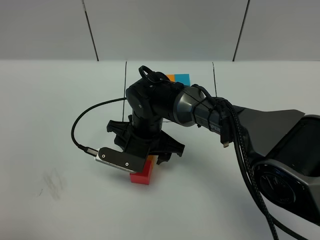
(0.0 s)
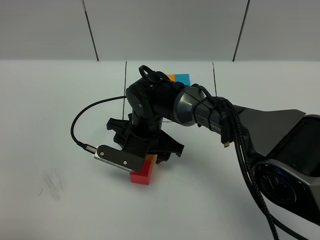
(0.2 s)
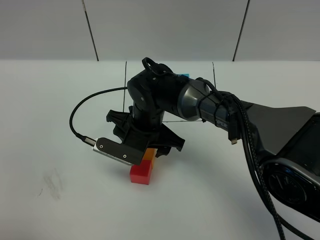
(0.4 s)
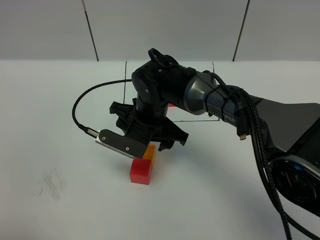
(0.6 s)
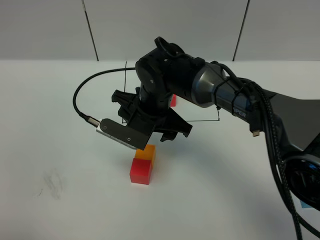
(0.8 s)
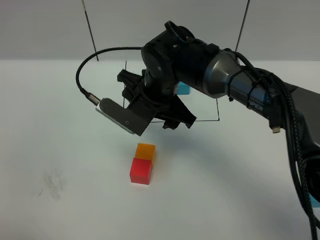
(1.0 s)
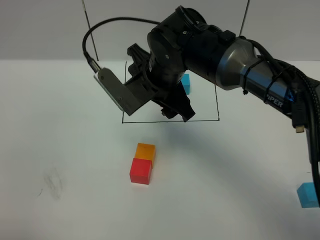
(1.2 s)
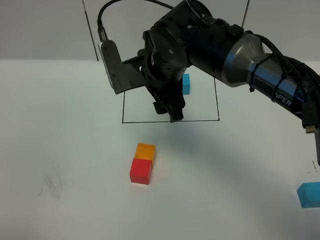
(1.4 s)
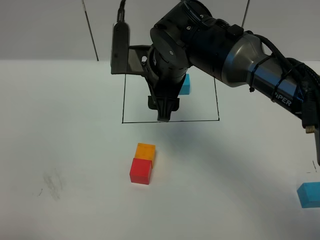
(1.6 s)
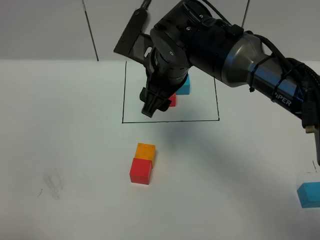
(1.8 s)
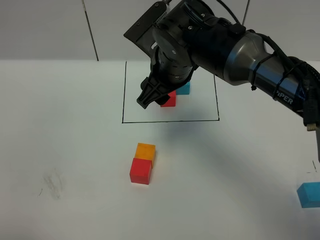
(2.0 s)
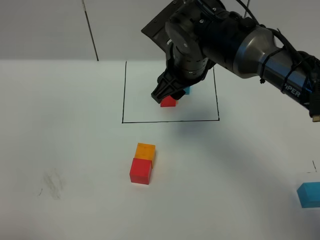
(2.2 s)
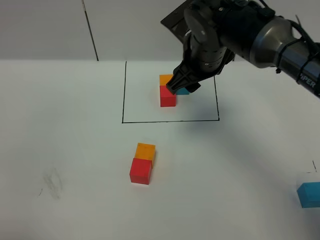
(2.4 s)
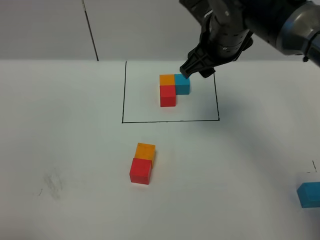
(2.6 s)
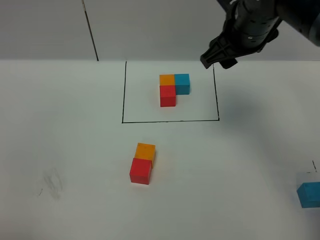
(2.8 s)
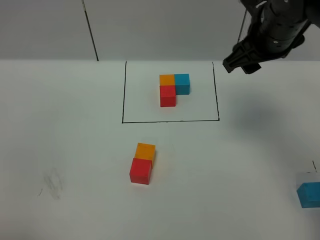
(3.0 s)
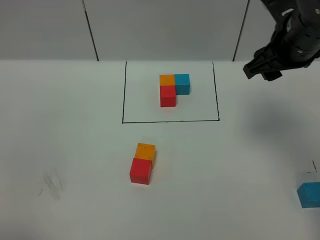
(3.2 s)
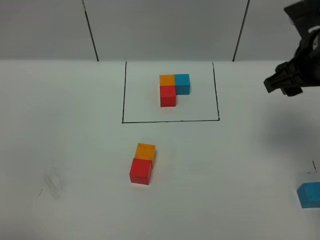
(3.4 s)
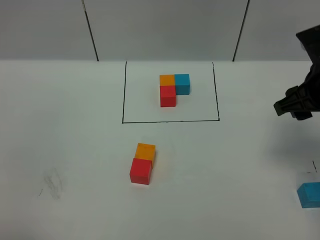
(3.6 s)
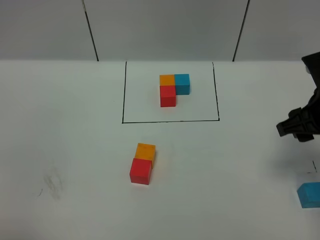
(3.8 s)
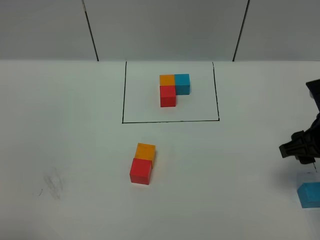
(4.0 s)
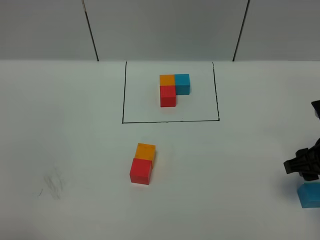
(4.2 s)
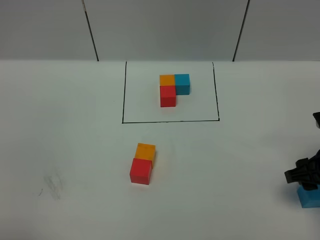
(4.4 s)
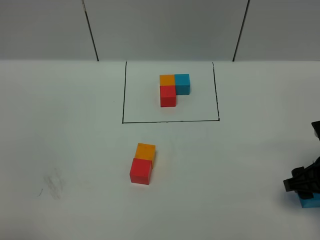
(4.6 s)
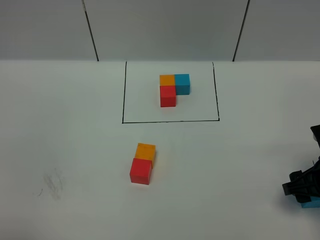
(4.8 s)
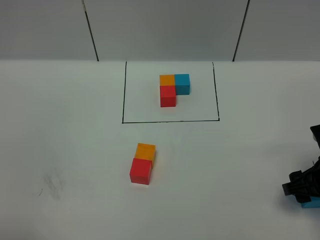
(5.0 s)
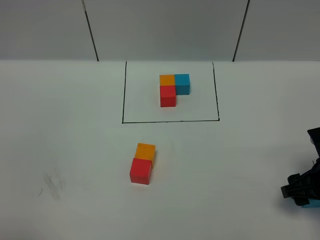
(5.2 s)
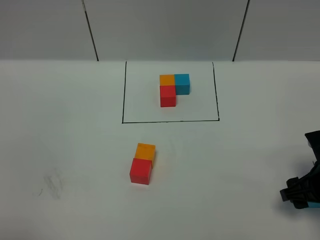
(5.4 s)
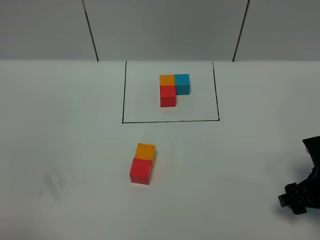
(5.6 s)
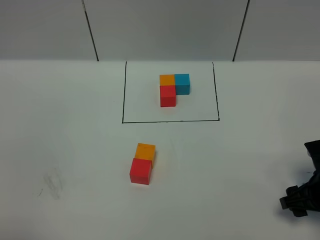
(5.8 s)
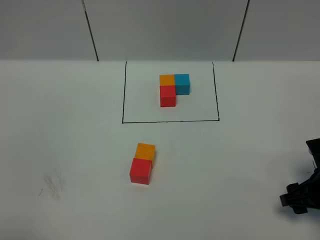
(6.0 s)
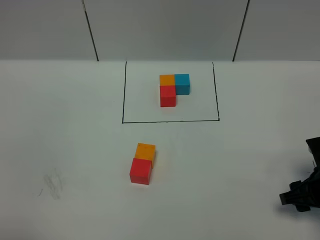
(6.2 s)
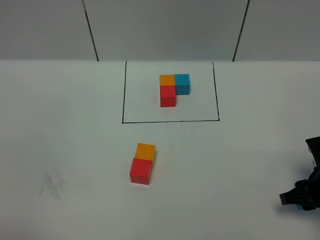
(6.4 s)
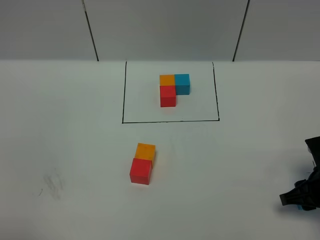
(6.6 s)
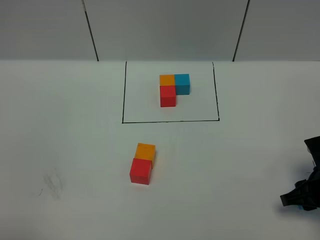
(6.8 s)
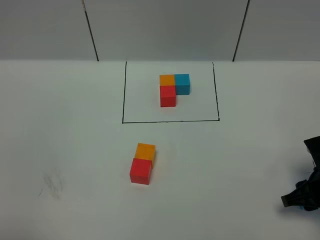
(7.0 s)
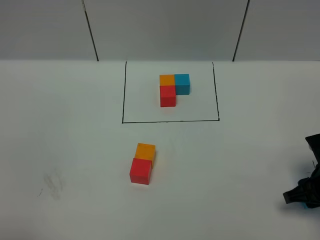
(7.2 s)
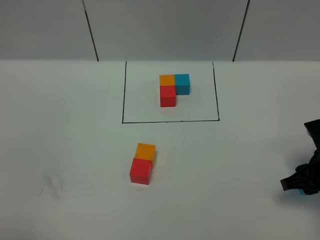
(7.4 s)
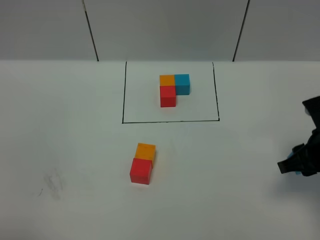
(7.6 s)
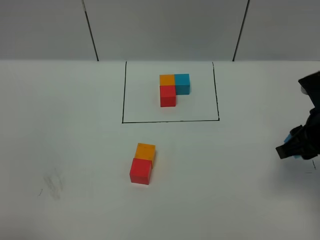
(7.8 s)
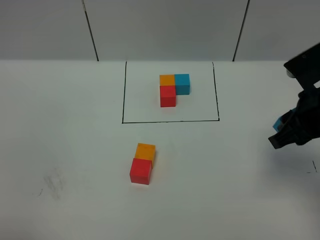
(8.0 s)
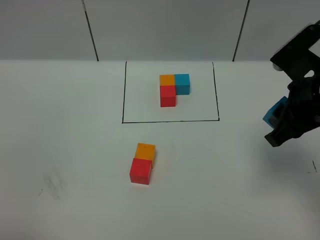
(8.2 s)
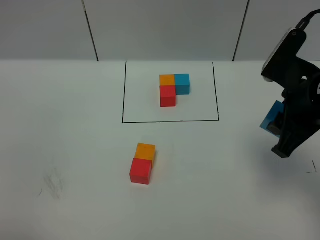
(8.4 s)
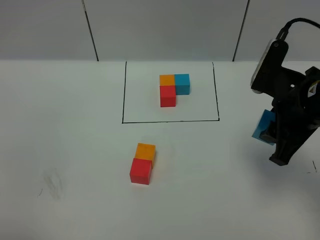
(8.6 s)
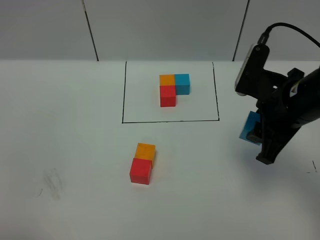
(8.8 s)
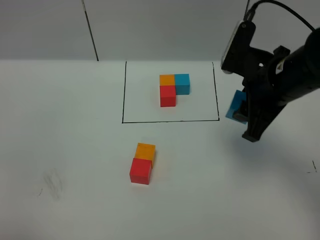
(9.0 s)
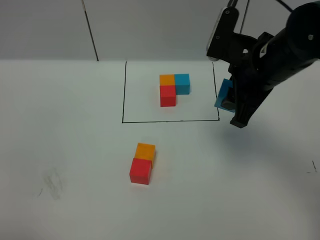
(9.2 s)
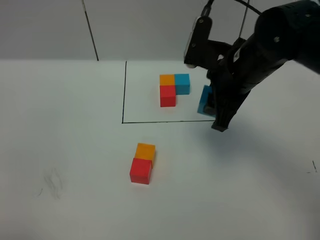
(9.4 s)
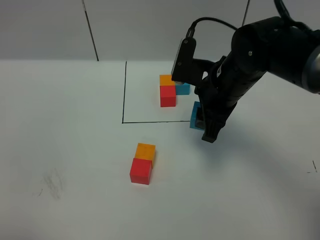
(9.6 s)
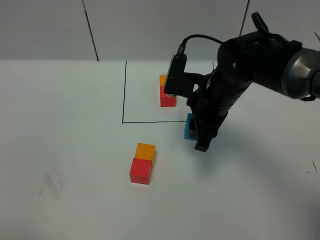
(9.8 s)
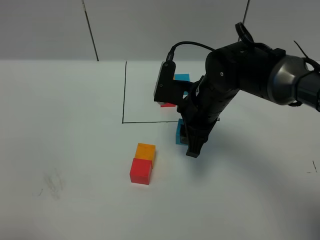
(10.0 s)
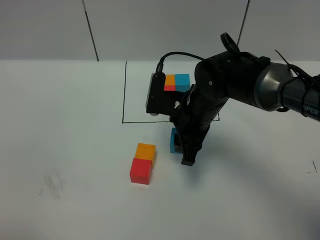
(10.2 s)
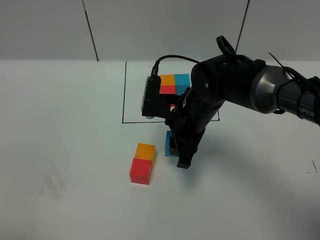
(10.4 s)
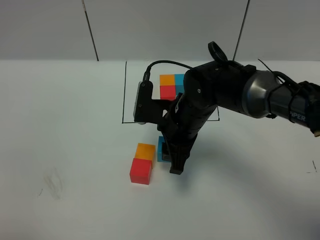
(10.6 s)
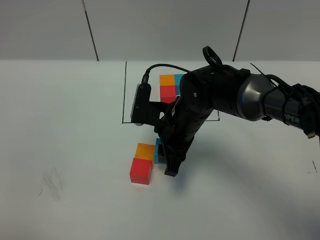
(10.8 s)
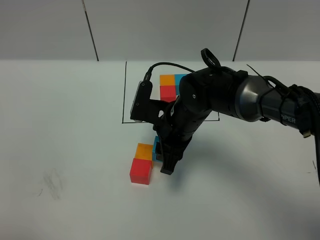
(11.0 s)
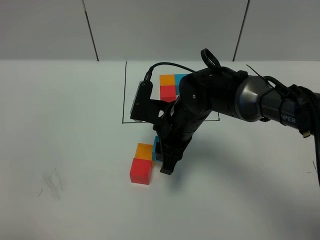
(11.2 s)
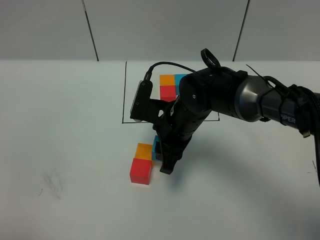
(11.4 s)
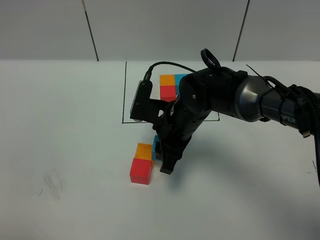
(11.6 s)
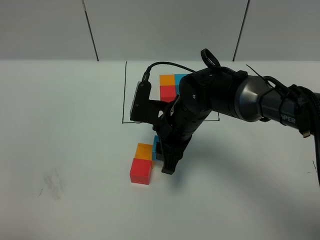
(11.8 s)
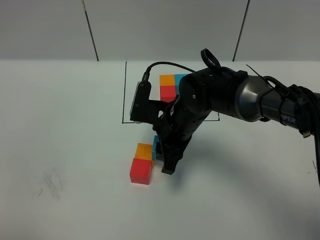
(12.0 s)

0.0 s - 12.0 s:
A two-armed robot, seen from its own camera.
Task of the whole recording: According to the building block template in front, assemble the scattered blocks together.
0.0 s - 1.6 s: The right gripper heads upward, covering about 15 cm.
1.6 s - 3.0 s: The right gripper travels to the right by some 15 cm.
3.0 s - 4.4 s: The right gripper is displaced downward, backward and to the right by about 25 cm.
4.4 s - 6.0 s: The right gripper heads downward, covering approximately 5 cm.
6.0 s - 7.6 s: The right gripper travels upward by about 10 cm.
7.6 s - 9.0 s: The right gripper heads to the left, upward and forward, covering some 15 cm.
9.0 s - 10.4 s: The right gripper goes some 15 cm to the left and downward.
10.4 s - 12.0 s: The grippers stay close to where they were, moving slightly.

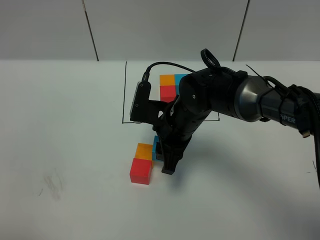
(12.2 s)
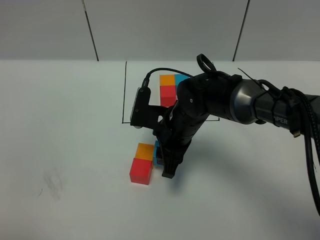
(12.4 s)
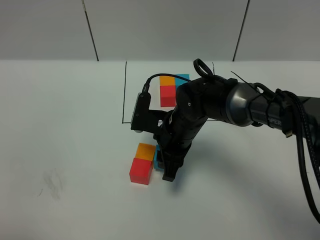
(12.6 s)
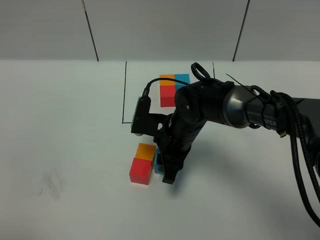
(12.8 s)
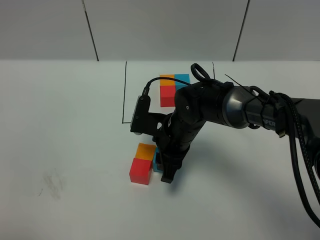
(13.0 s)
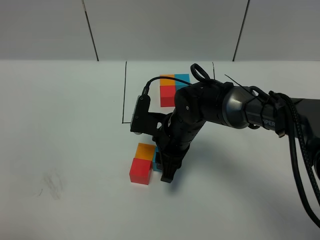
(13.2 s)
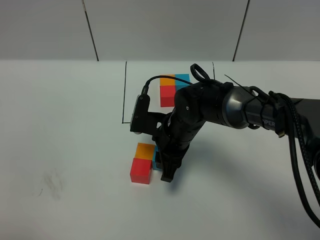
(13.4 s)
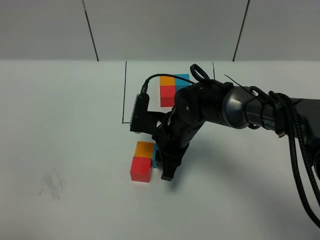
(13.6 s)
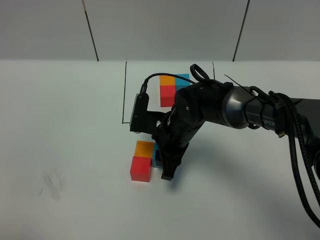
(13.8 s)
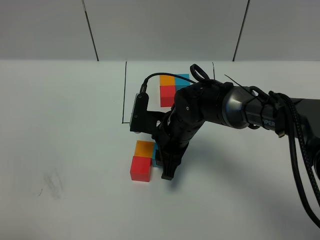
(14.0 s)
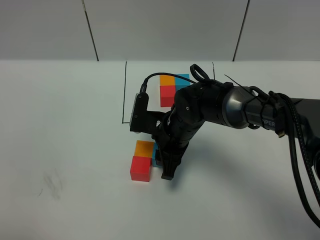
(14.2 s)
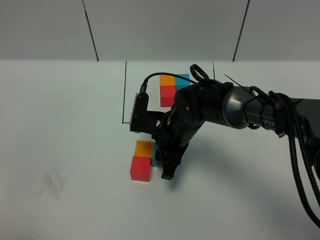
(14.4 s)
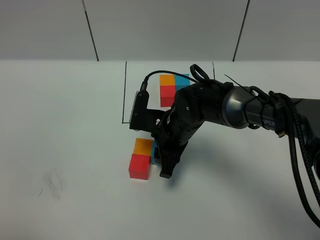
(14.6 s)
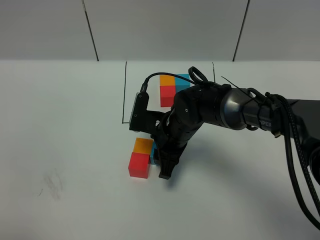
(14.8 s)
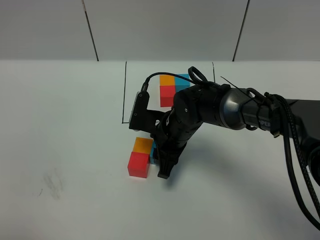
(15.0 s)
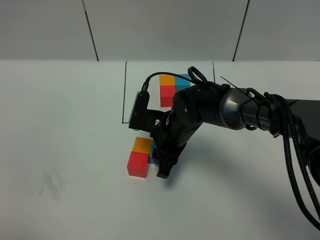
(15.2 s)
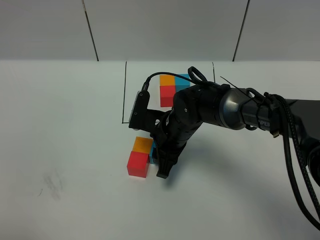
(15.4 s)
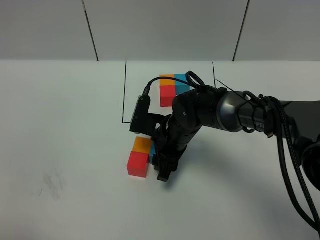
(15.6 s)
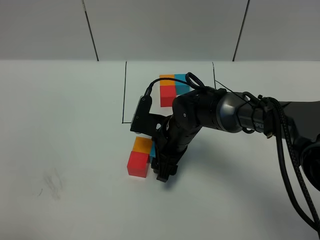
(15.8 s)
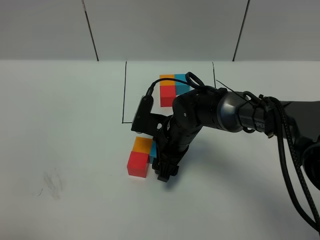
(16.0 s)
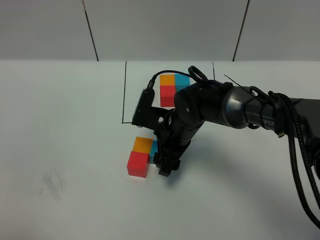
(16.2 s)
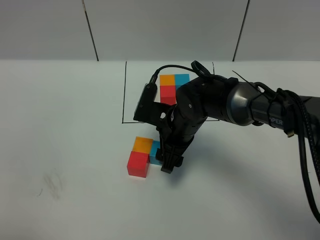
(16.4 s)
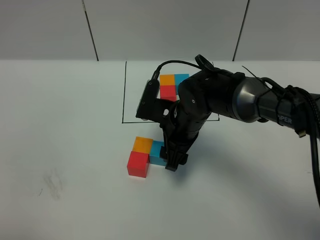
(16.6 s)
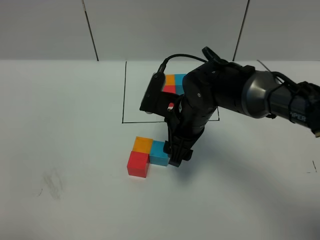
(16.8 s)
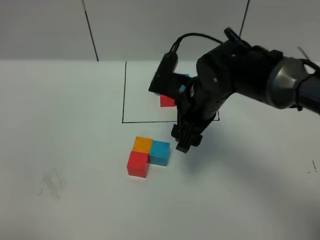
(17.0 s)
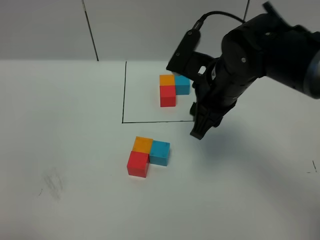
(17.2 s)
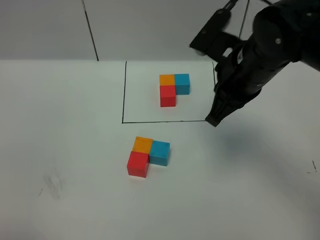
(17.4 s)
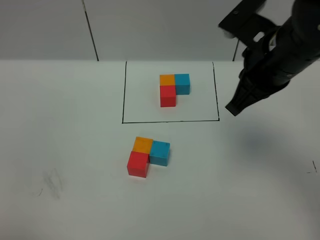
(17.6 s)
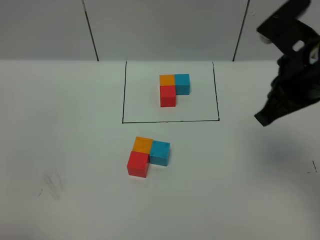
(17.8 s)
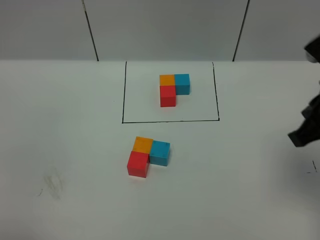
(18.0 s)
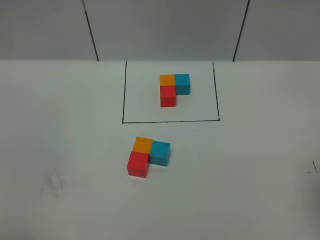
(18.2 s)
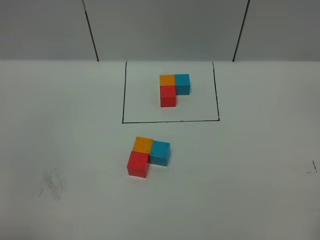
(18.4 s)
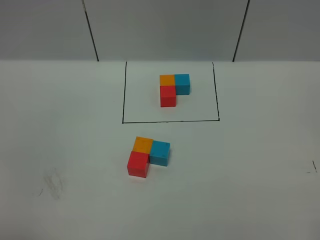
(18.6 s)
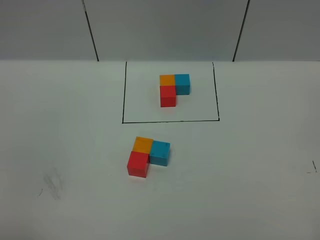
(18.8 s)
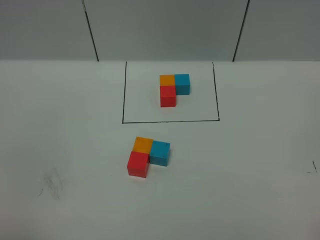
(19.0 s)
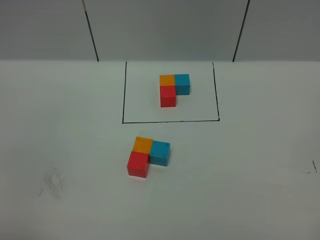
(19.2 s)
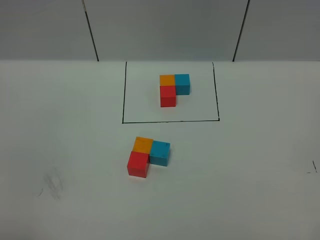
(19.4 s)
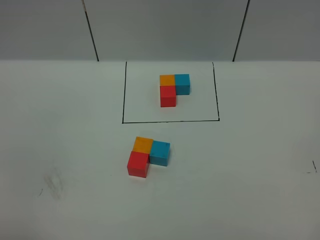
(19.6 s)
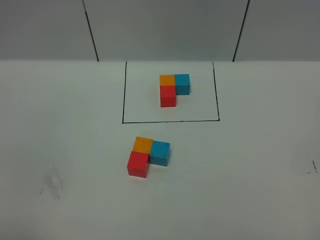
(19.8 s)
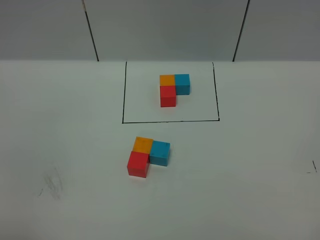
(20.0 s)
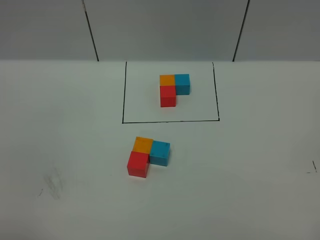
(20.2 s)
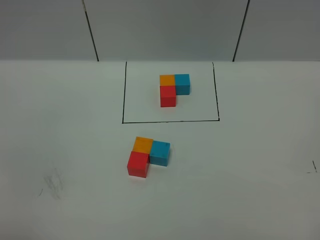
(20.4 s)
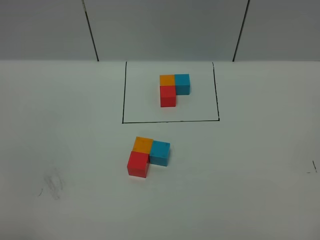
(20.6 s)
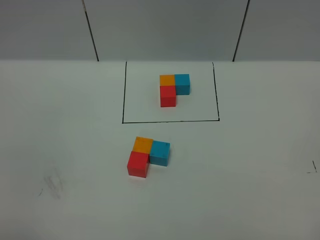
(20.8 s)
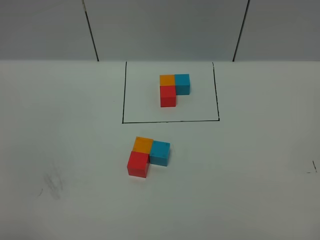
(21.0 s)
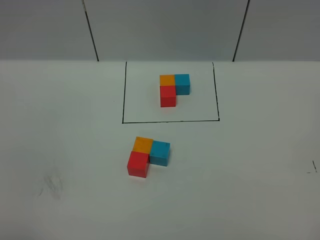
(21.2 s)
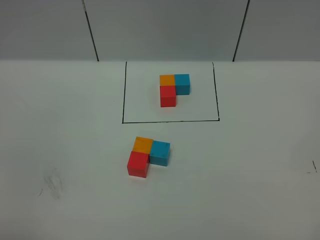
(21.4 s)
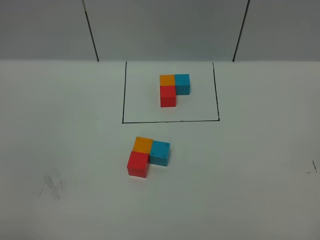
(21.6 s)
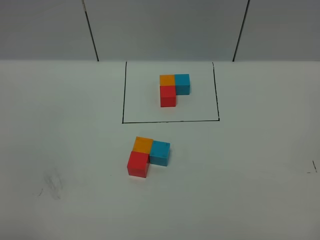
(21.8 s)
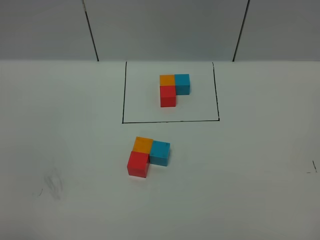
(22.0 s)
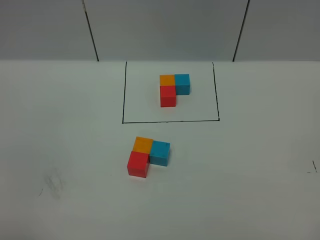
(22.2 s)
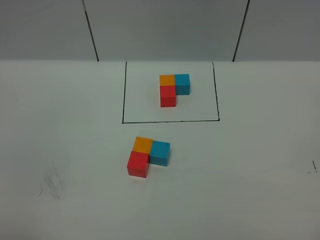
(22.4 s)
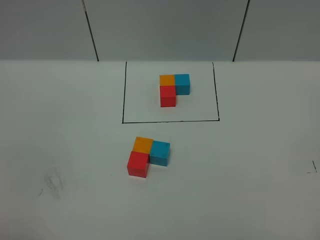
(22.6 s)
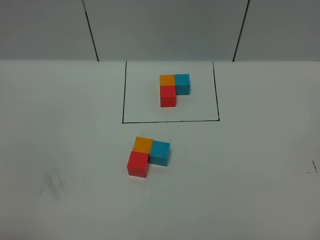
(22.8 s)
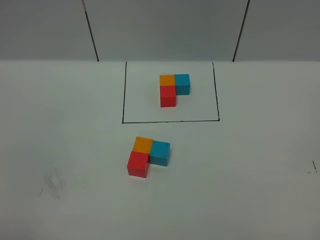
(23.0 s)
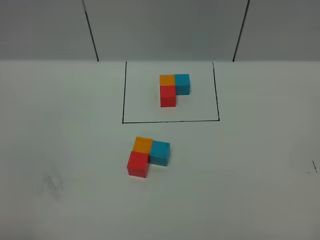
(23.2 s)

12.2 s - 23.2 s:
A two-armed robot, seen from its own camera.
Task of the whole recording: According to the building block template in front, assemble the scattered blocks together.
Step, 12.2 s - 16.8 s: Put the blue cube on the right of the orange cube.
12.2 s - 13.8 s: The grippers stay close to where they were, moving slightly.
13.8 s - 15.4 s: Neither gripper changes place.
15.4 s - 17.0 s: The right gripper shifts roughly 10 cm upward.
17.0 s - 18.4 s: The right gripper moves backward, to the right and upward, about 35 cm, and closes its fingers.
20.0 s - 23.2 s: Both grippers stay put.
